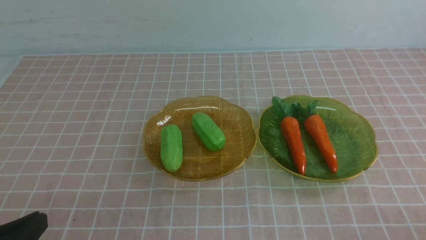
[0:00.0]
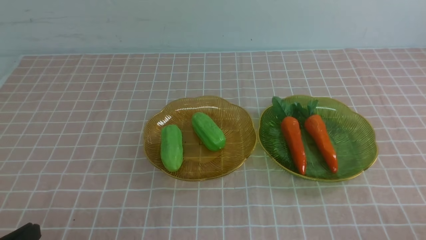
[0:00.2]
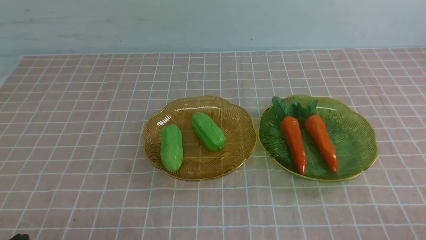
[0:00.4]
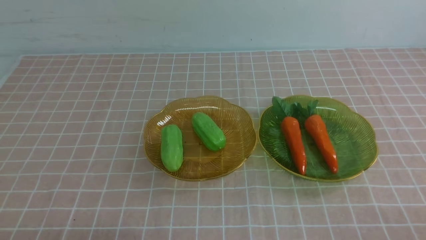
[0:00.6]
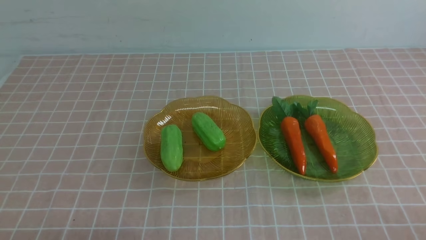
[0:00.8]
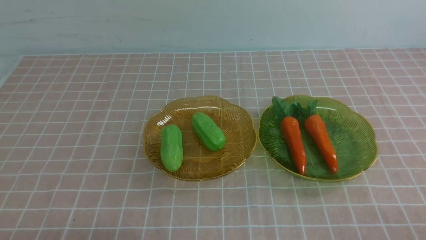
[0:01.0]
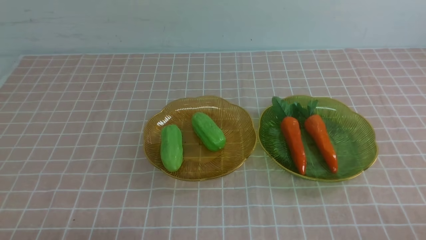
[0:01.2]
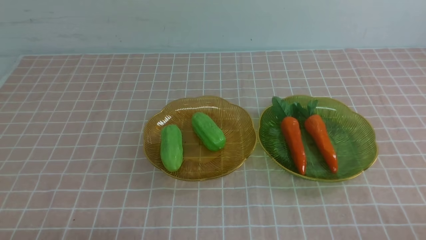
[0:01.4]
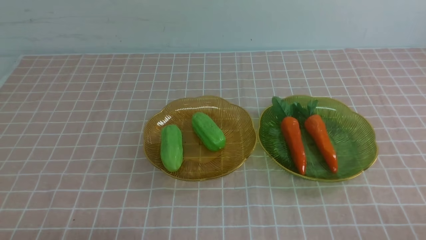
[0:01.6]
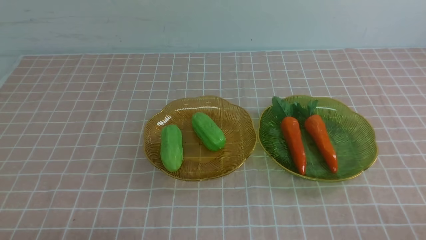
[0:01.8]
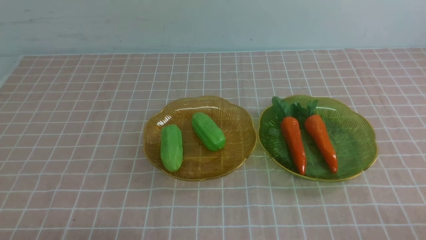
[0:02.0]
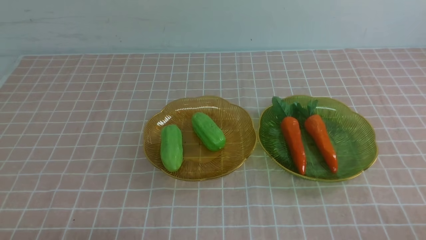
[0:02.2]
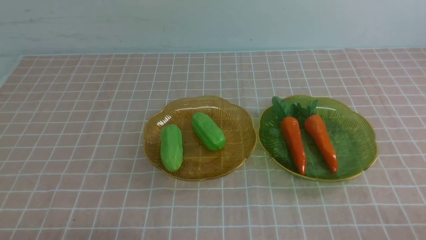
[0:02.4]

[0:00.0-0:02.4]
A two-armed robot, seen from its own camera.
0.0 to 1.2 s: The left gripper shifts some 5 cm downward.
1.2 to 2.4 s: Both grippers stay about where they are.

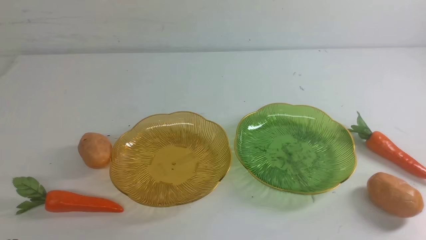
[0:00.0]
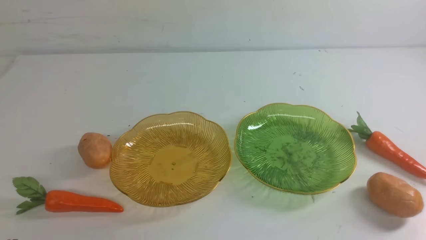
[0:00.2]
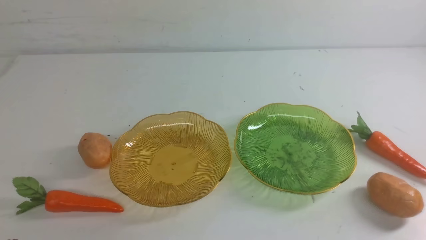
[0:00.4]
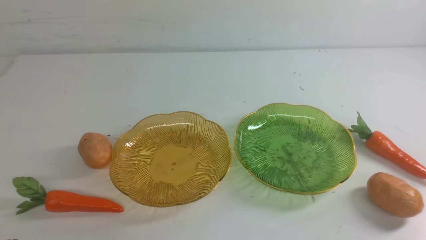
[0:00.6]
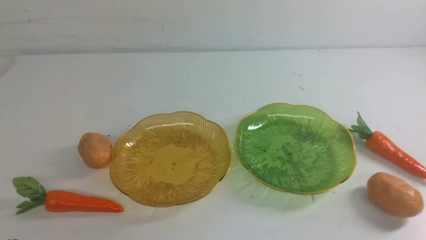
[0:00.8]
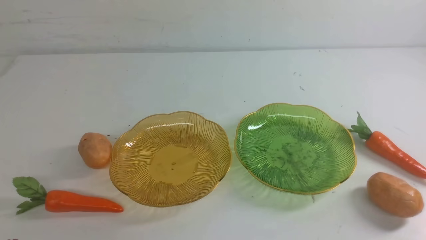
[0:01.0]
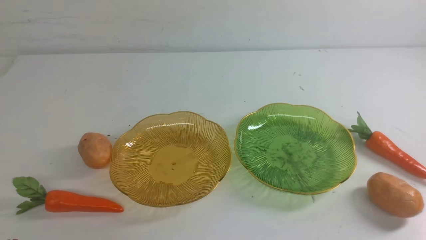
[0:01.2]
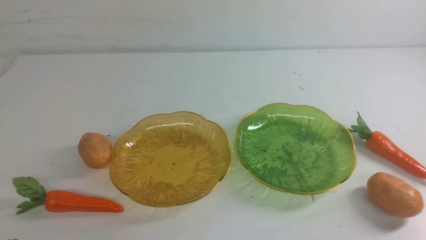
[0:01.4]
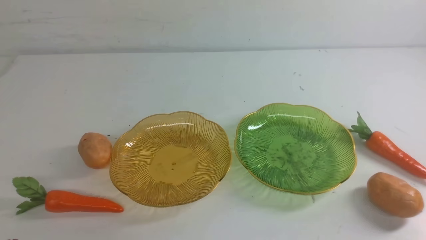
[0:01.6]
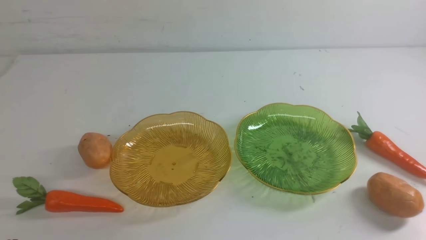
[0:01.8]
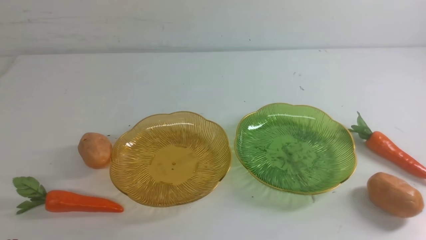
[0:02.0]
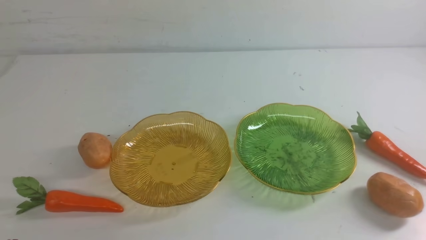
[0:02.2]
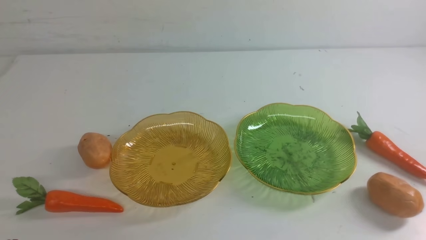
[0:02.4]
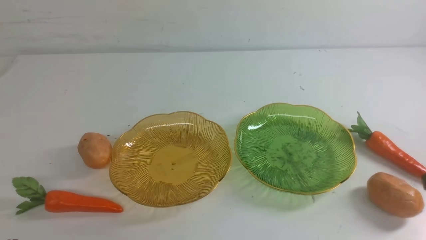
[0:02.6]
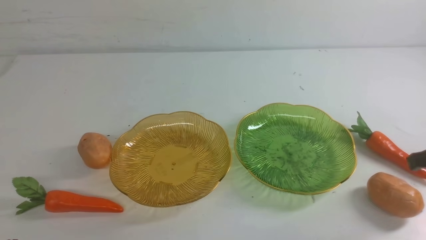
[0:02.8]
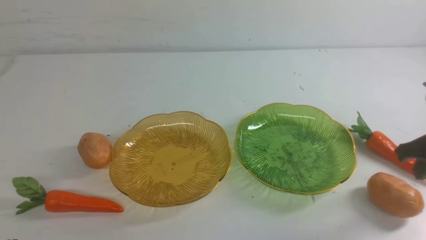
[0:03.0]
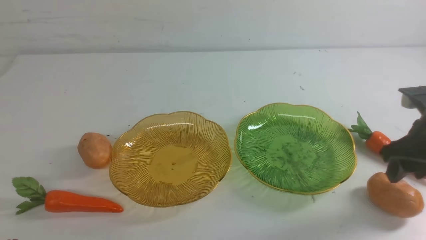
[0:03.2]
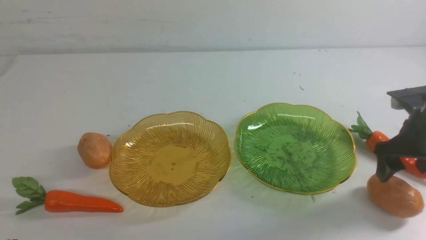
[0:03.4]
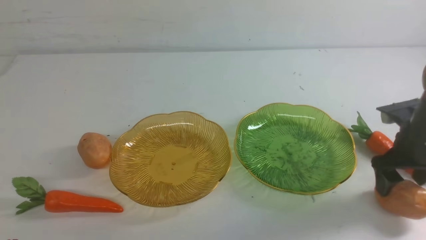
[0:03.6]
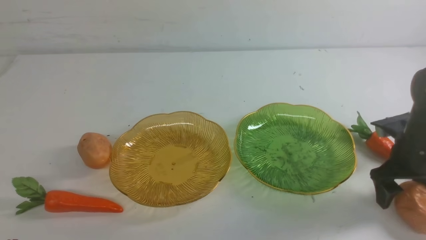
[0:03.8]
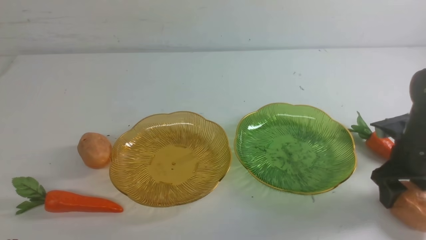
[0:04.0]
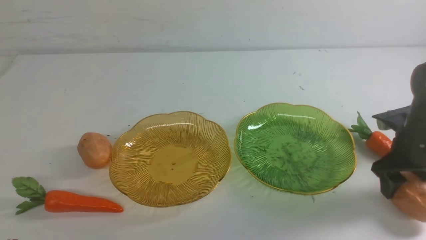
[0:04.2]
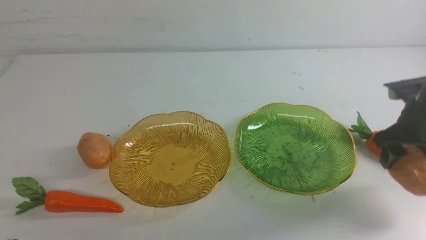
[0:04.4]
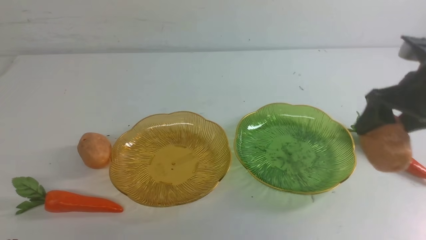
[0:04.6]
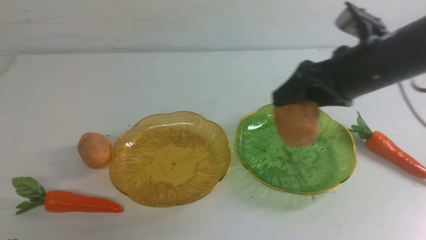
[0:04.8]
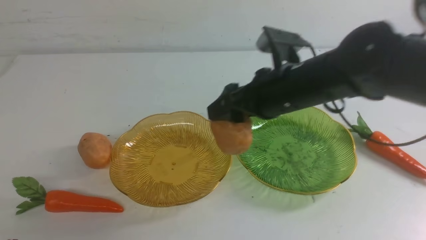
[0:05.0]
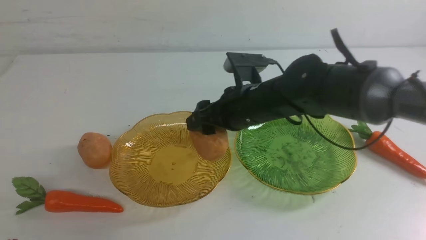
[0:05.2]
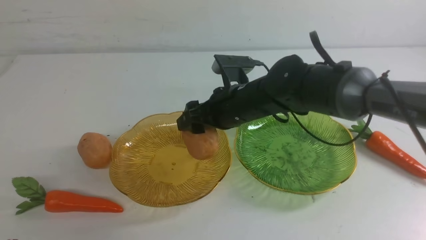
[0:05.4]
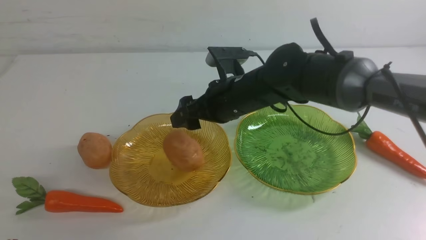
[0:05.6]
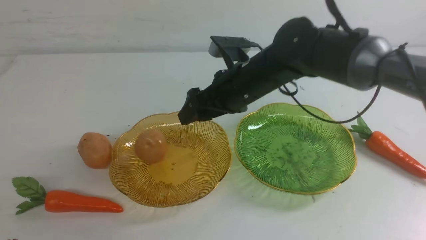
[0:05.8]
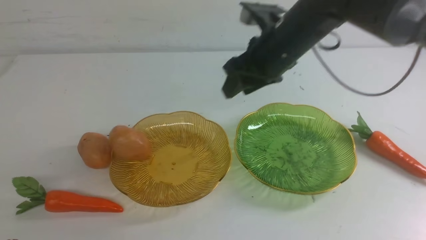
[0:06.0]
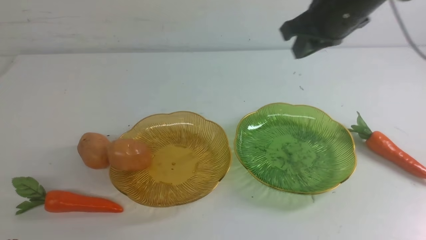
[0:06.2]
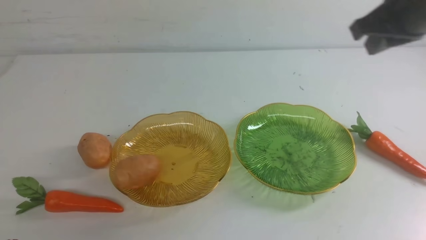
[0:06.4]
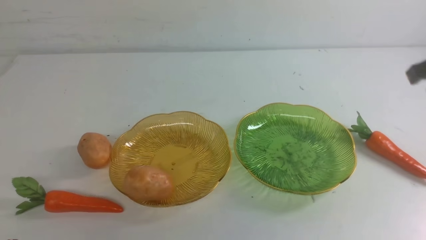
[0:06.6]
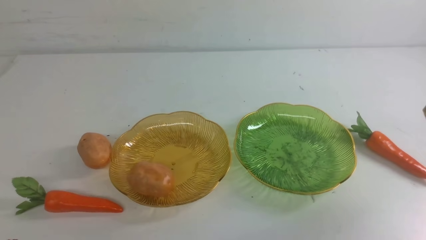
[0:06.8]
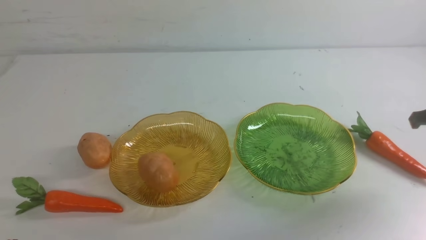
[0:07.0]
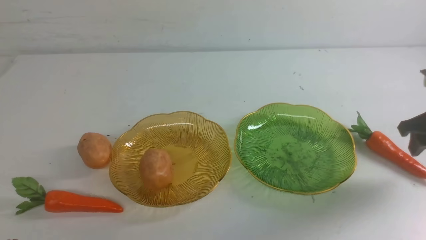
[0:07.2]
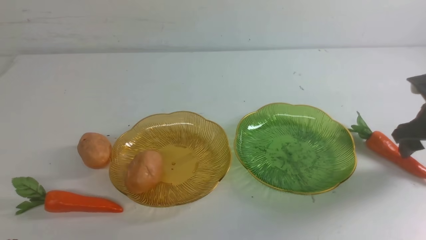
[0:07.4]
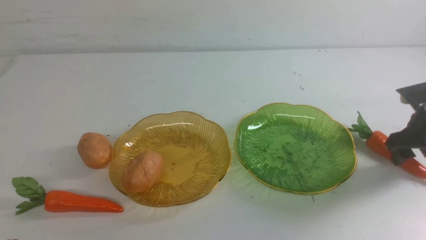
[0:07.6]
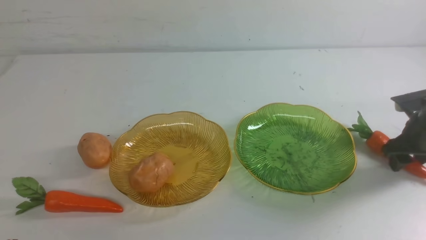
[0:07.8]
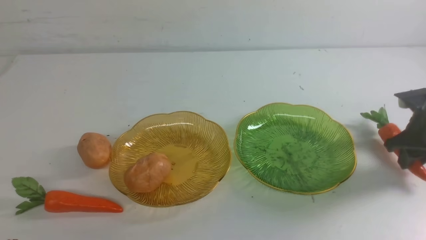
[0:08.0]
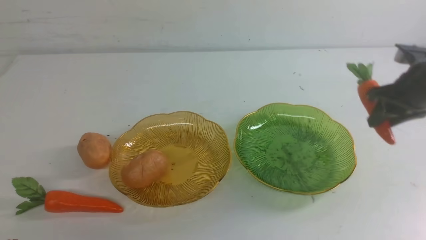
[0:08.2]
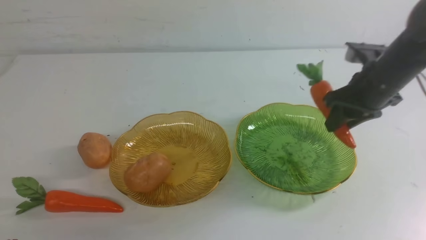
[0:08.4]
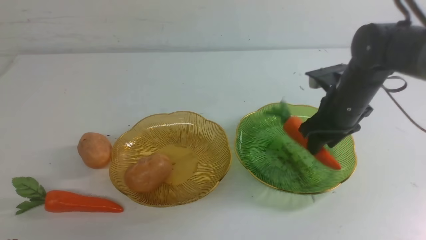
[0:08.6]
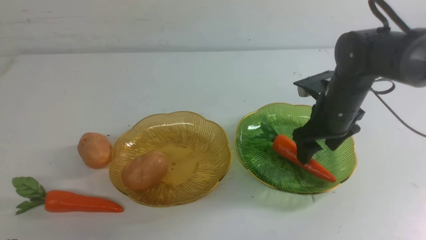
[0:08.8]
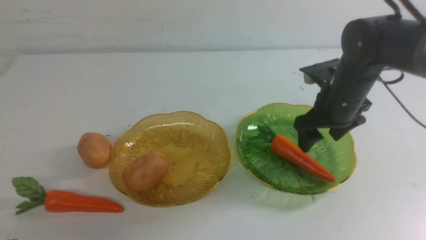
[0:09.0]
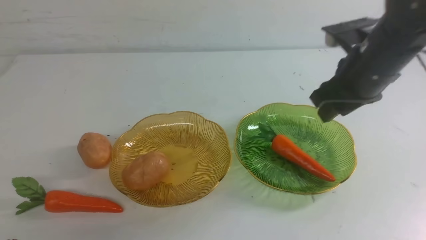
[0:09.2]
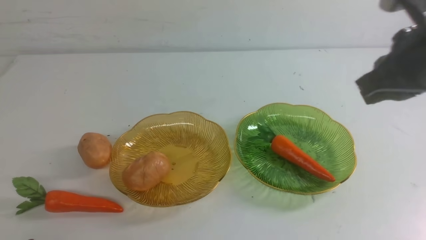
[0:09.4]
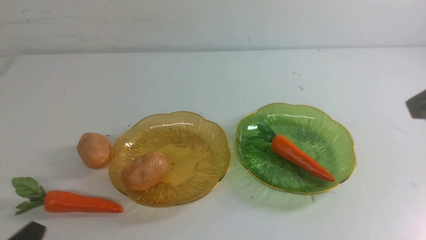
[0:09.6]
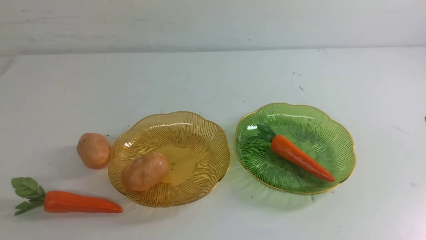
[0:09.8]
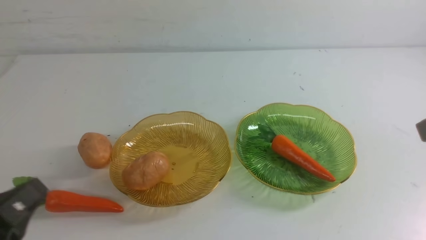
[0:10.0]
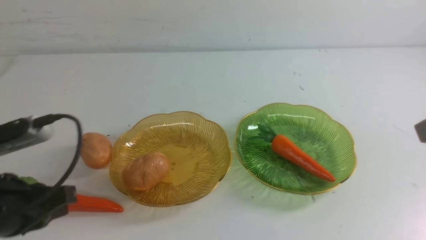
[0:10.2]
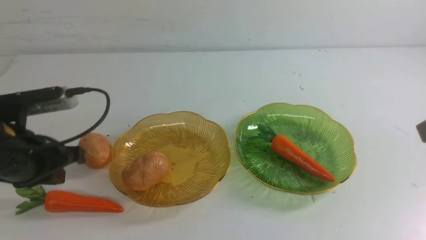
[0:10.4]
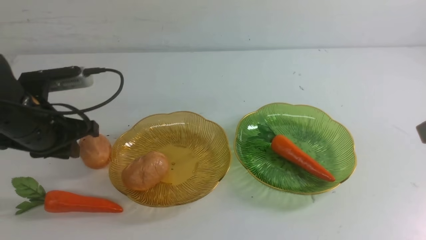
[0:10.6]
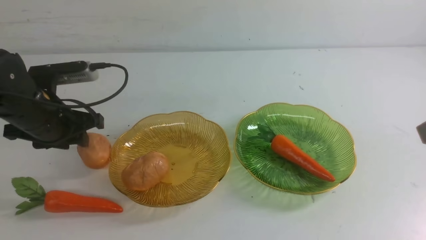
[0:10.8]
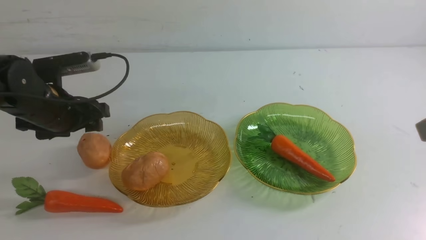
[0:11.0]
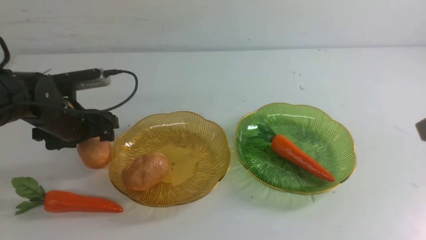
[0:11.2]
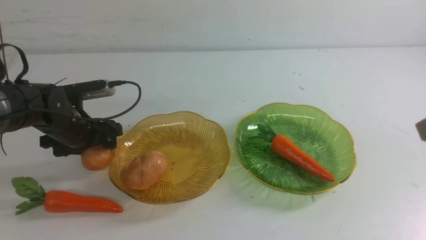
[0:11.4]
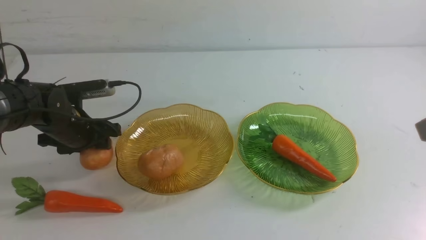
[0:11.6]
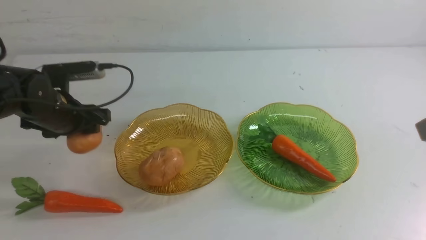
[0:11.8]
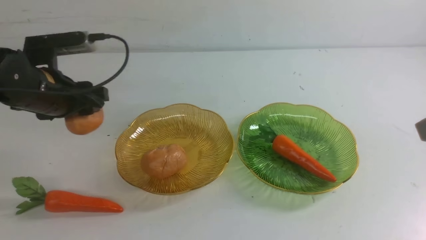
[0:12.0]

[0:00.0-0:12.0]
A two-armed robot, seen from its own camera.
Step, 0.0 to 5.8 s: Grab a potato with your right arm and put it on the left plate.
Step, 6.0 to 9.0 s: use the right arm to grab a carrot and put it into the right plate.
1.6 to 3.0 s: The right gripper shifts about 20 cm forward.
3.0 to 4.4 s: The right gripper shifts roughly 5 cm forward, reaches some 10 cm downward, then returns, and opens.
4.4 to 6.0 s: The right gripper is displaced to the left by some 20 cm.
6.0 to 7.6 s: The right gripper heads to the right and downward, covering roughly 30 cm, and closes, then opens again.
7.6 to 9.0 s: The right gripper heads to the left and upward, covering approximately 20 cm.
9.0 to 10.4 s: The right gripper heads backward and upward, covering about 25 cm, and closes; the left gripper is displaced forward and upward by roughly 25 cm.
10.4 to 12.0 s: The left gripper heads forward, covering about 10 cm, and opens.

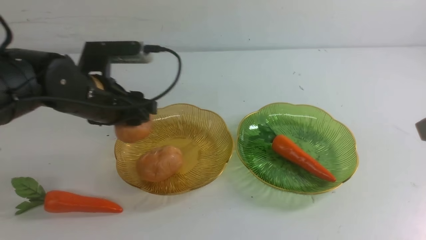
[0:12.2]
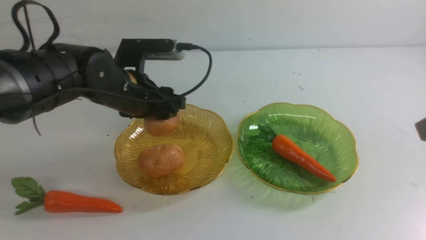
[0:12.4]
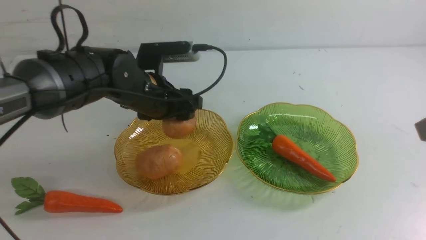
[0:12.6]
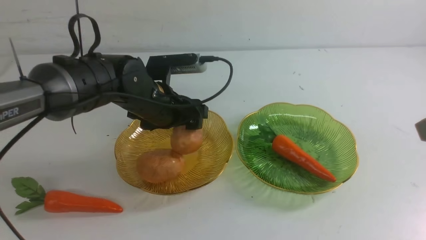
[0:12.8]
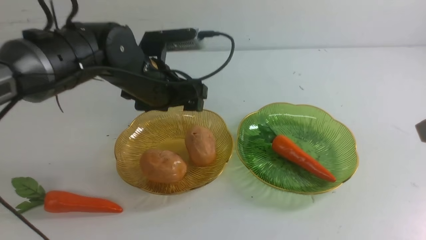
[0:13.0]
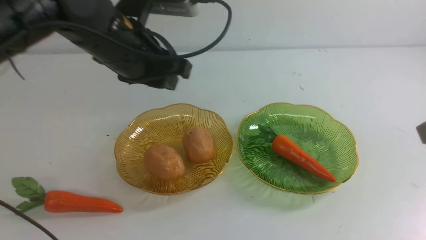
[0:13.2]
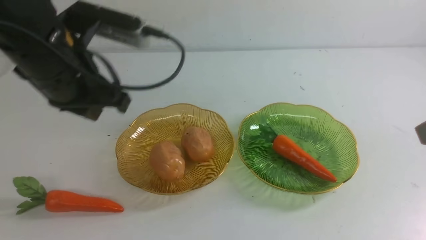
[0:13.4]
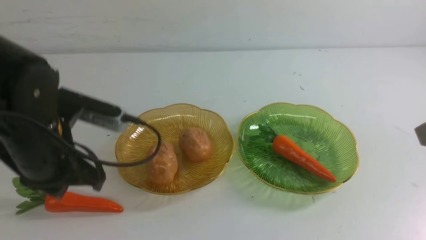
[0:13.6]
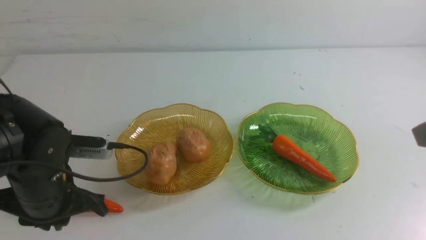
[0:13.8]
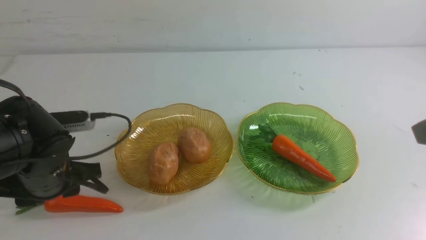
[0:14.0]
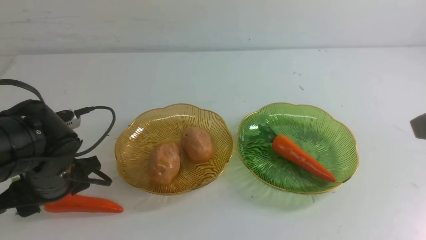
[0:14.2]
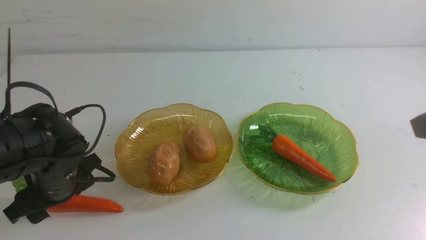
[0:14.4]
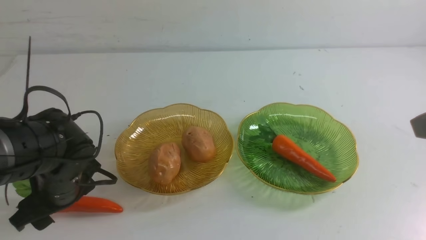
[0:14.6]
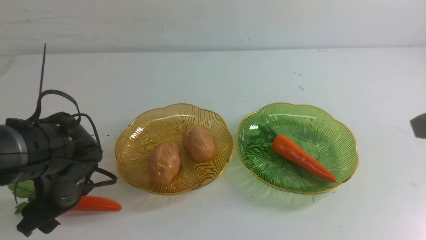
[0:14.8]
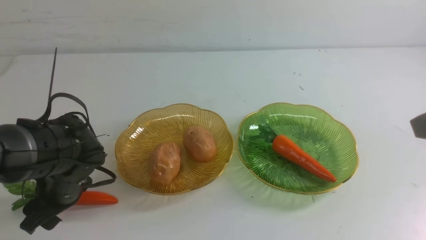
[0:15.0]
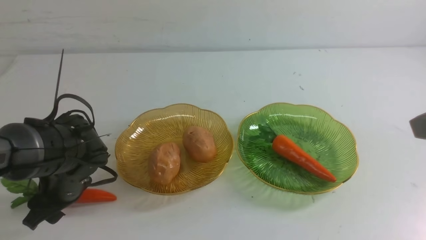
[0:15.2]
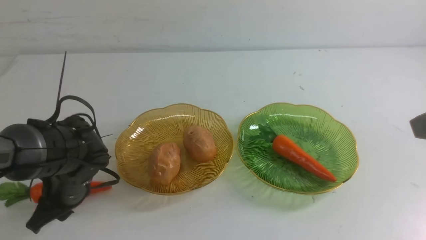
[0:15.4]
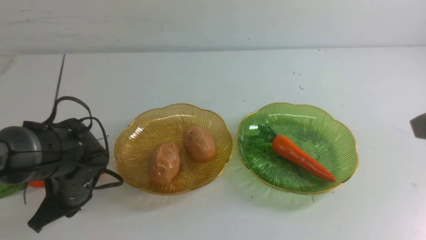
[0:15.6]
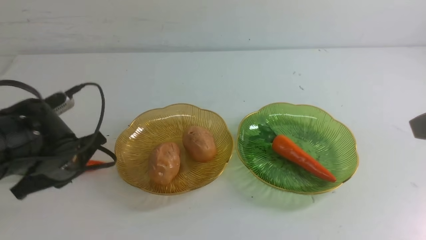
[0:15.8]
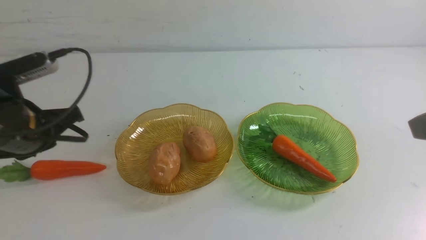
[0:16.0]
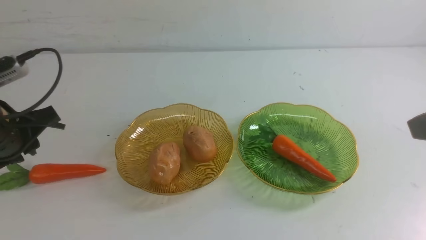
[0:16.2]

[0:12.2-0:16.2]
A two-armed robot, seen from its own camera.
12.2 to 13.6 s: The left gripper travels backward by approximately 10 cm, and closes up.
13.6 to 14.8 s: The left gripper moves downward, some 10 cm, and opens its fingers.
14.8 to 16.2 s: The left gripper travels upward by some 10 cm, and closes.
